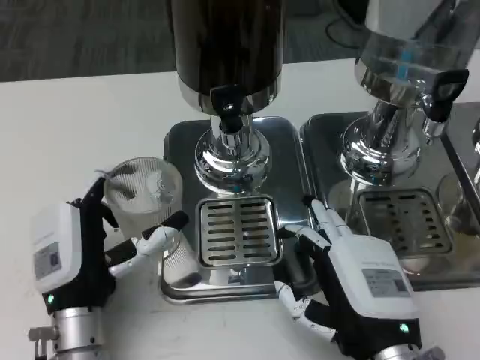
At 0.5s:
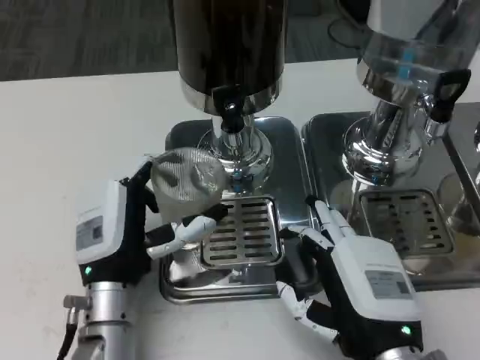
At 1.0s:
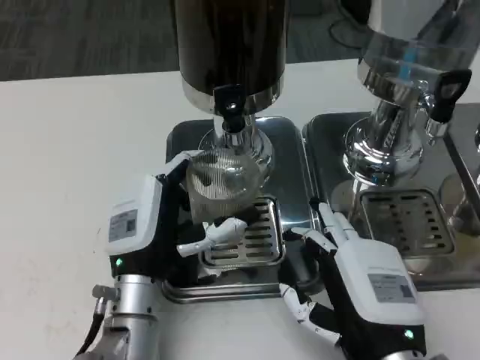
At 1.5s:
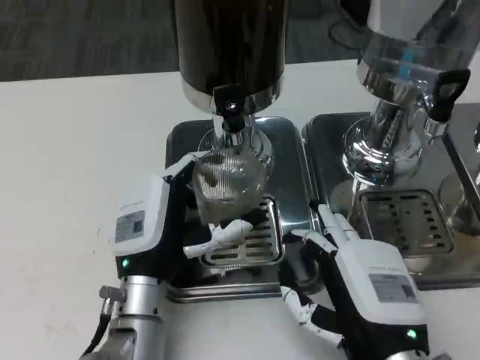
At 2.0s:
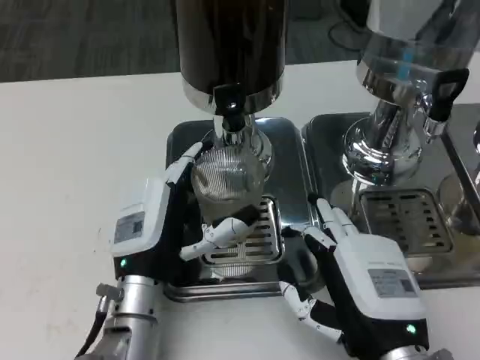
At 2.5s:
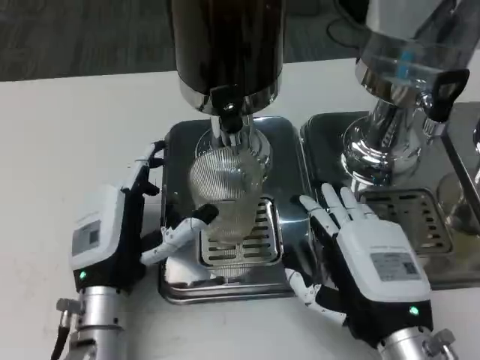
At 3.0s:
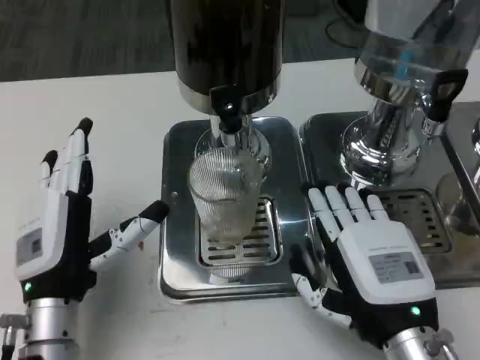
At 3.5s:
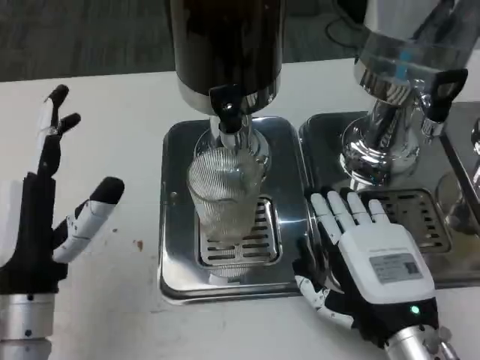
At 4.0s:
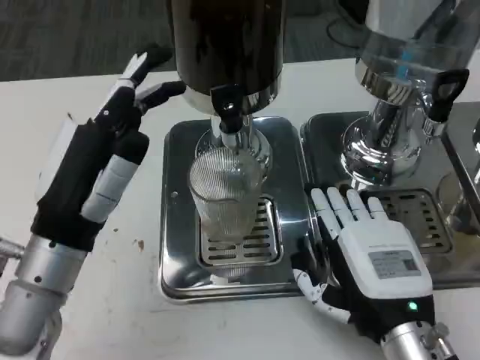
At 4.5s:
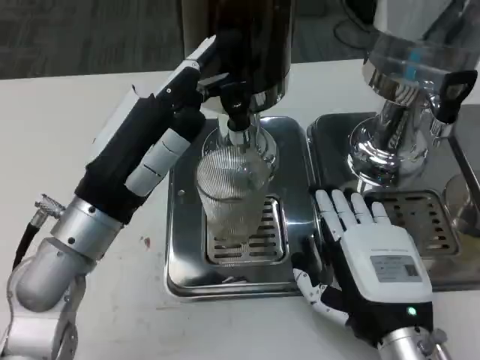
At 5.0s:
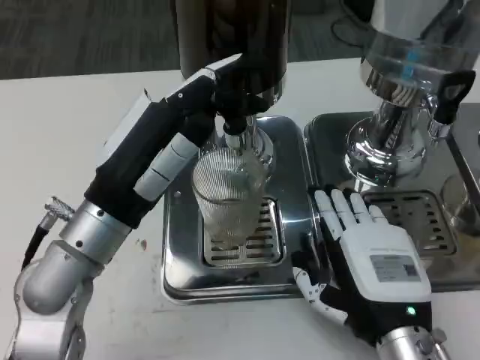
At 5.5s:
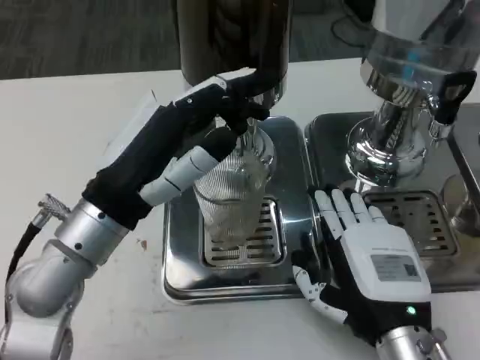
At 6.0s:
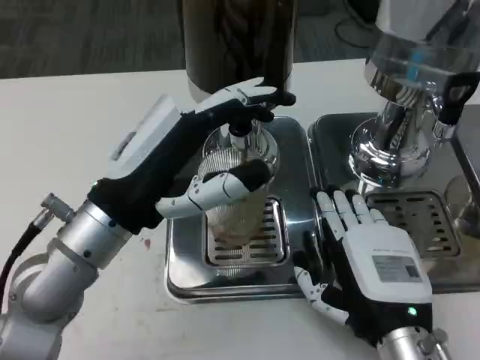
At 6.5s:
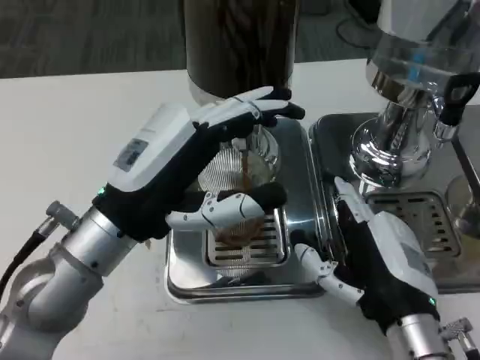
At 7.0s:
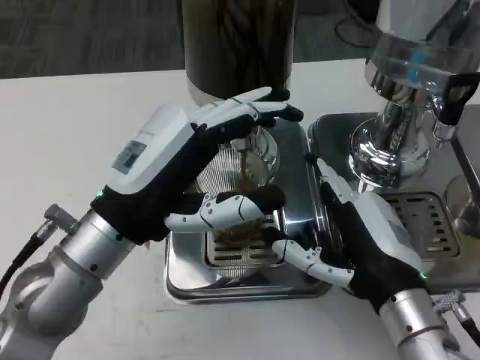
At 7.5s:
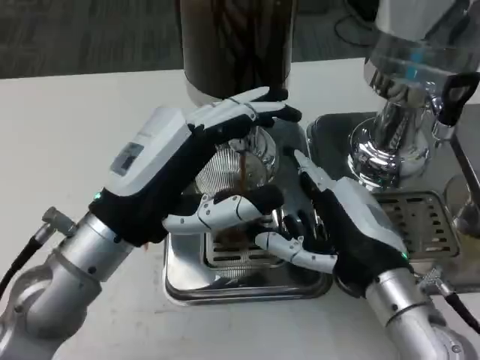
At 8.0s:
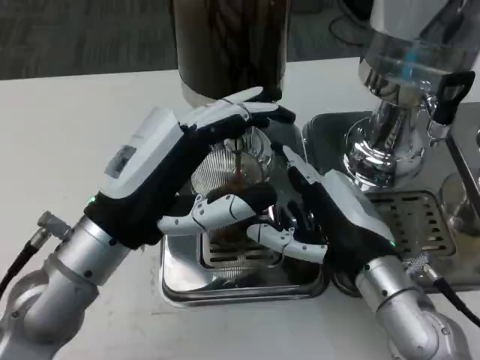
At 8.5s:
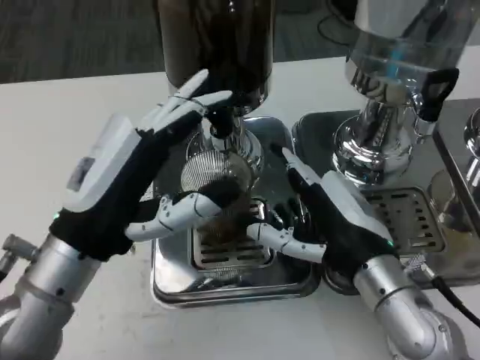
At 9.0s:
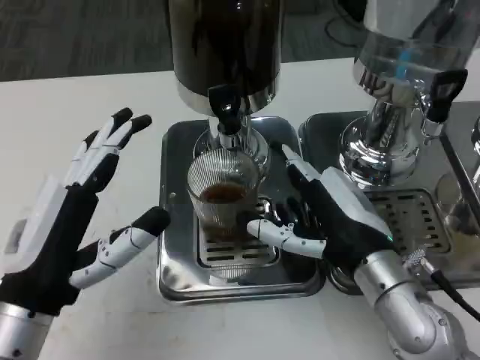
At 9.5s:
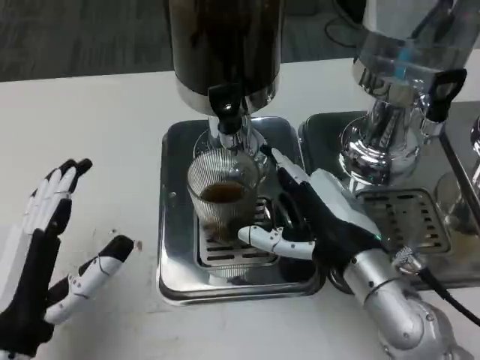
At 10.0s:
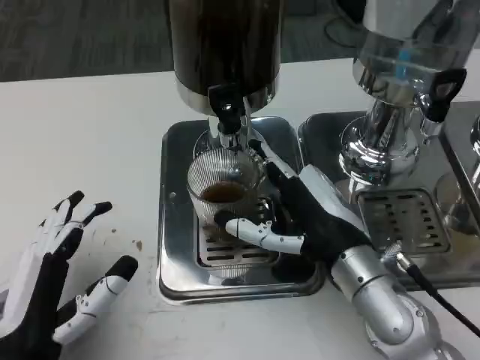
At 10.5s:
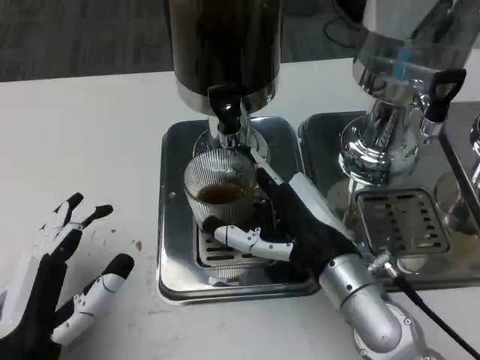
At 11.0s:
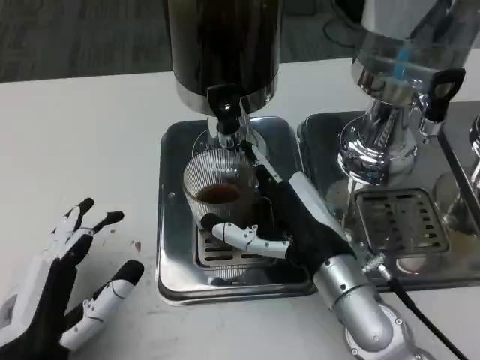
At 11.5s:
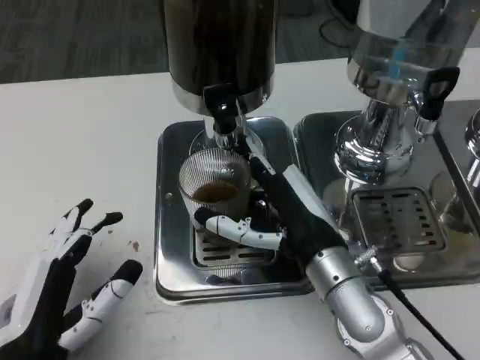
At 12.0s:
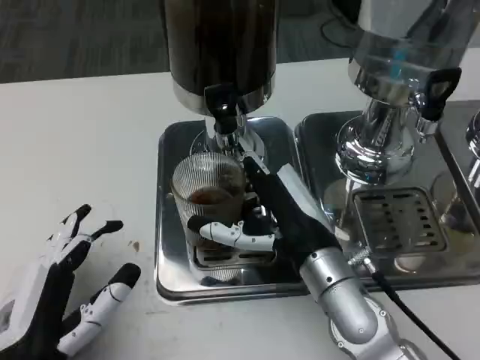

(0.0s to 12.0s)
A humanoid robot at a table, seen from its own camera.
Task of the whole recording: Grasp the cup under the faucet to collect the drink, then remove the cup.
2.0s - 4.0s: The left hand shifts some 10 cm upward and to the left.
6.0s - 8.0s: The right hand goes about 5 cm forward.
8.0s - 10.0s: The left hand goes roughly 15 cm backward, downward and to the left.

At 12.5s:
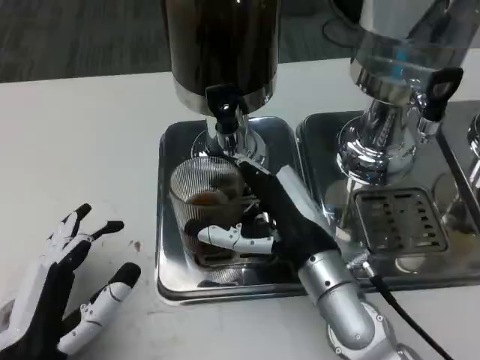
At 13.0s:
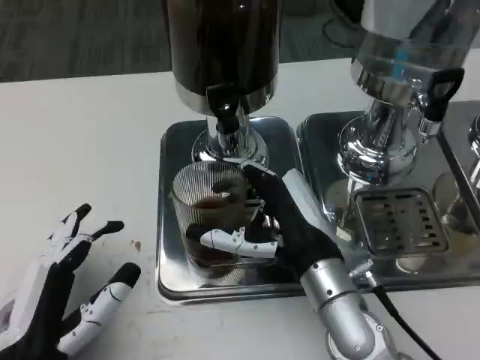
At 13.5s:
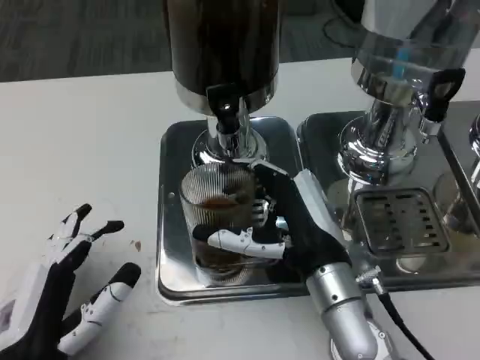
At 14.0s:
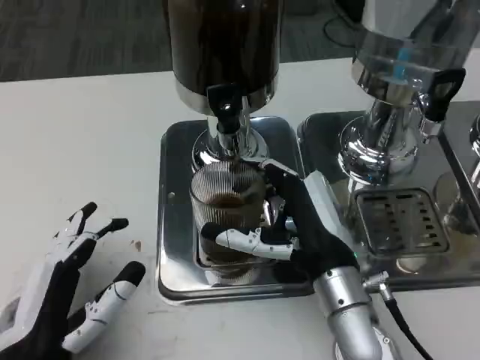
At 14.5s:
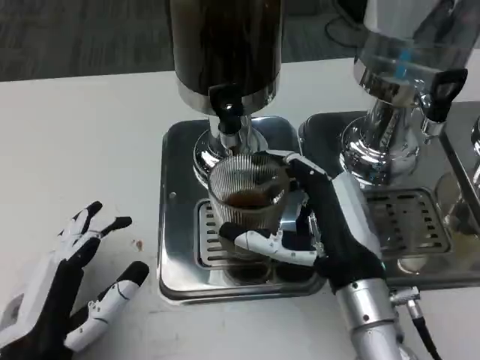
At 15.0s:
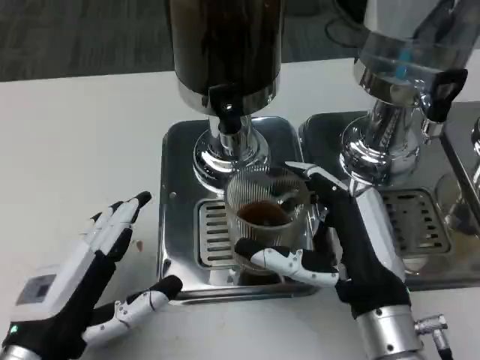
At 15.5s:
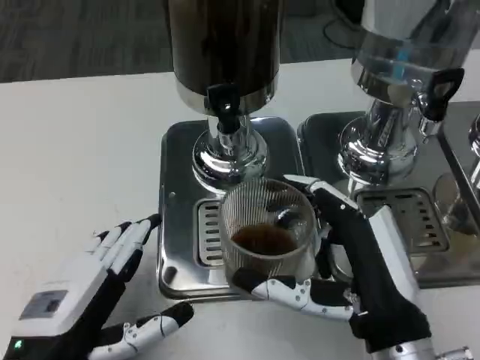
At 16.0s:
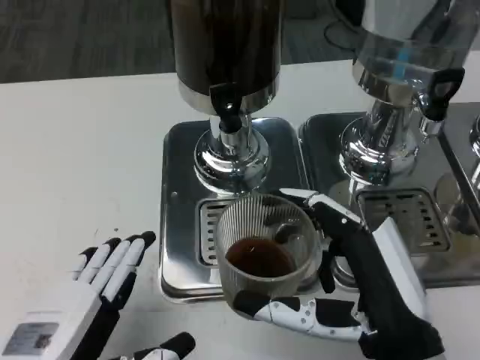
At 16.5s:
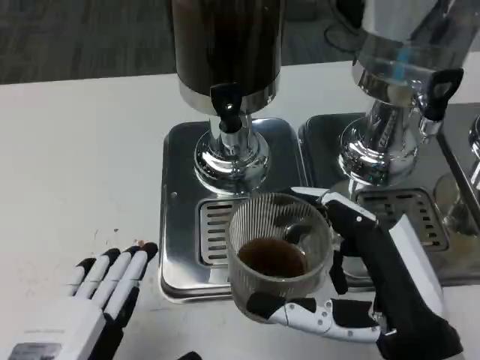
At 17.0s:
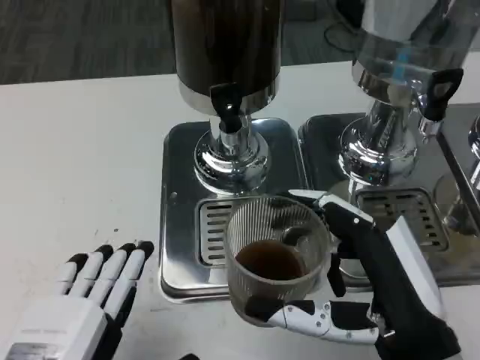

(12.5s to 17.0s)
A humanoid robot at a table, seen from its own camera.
Task of the whole recording: Grasp the cup under the faucet to collect the drink, then remove the cup.
14.5s - 17.0s: The left hand heads upward and backward, covering about 10 cm, while the right hand moves backward, roughly 10 cm.

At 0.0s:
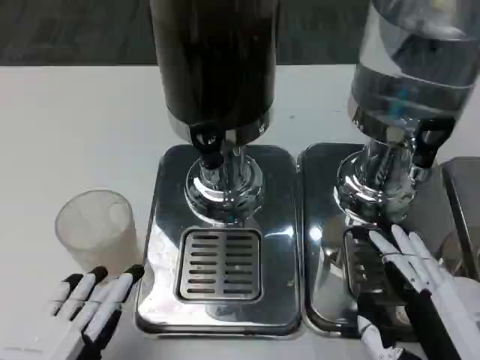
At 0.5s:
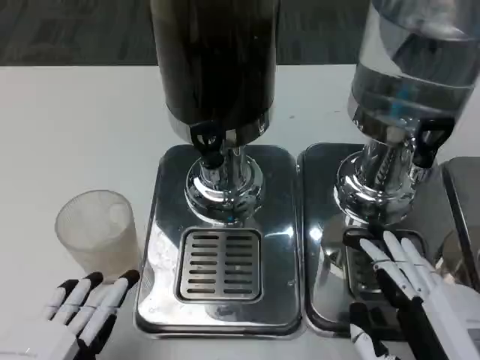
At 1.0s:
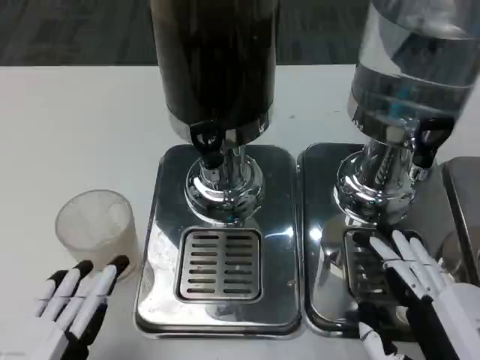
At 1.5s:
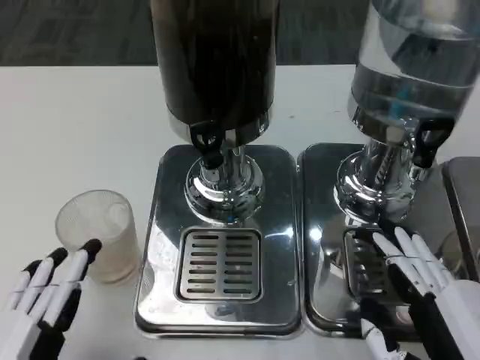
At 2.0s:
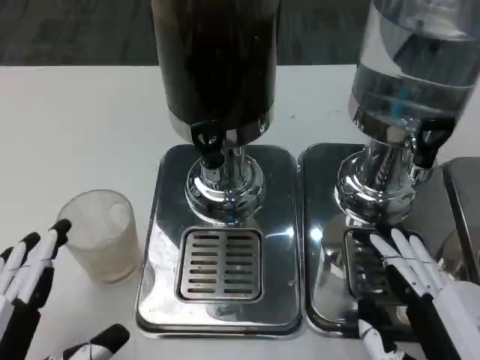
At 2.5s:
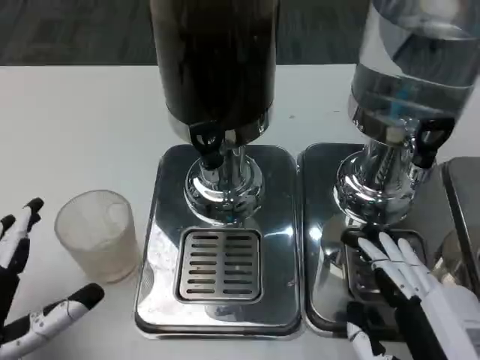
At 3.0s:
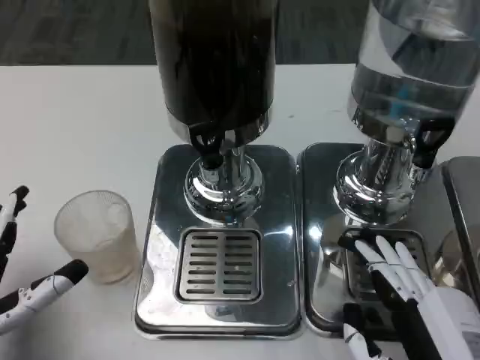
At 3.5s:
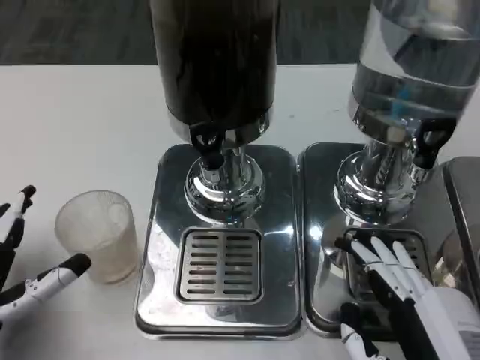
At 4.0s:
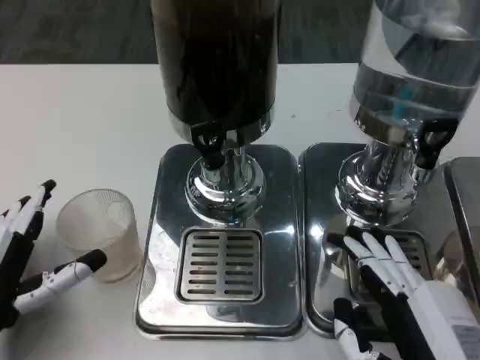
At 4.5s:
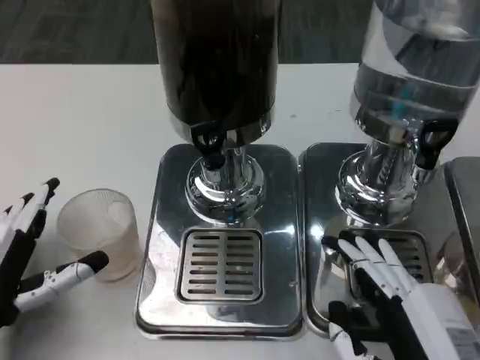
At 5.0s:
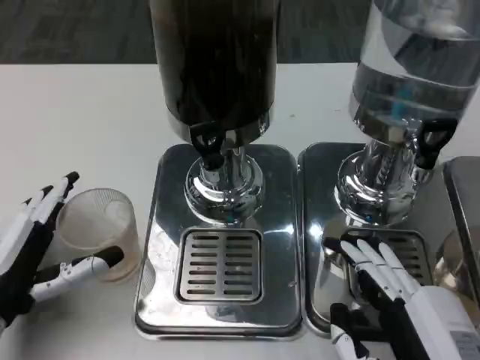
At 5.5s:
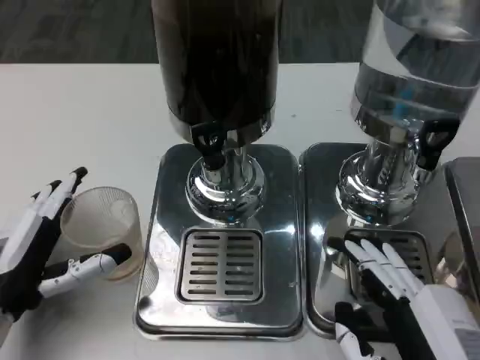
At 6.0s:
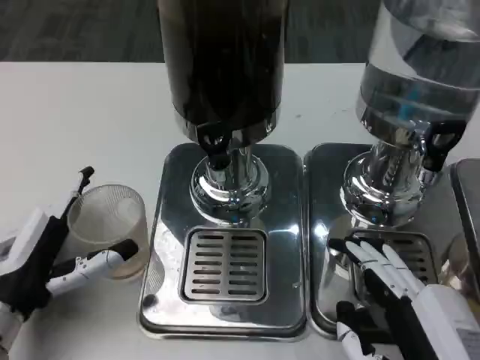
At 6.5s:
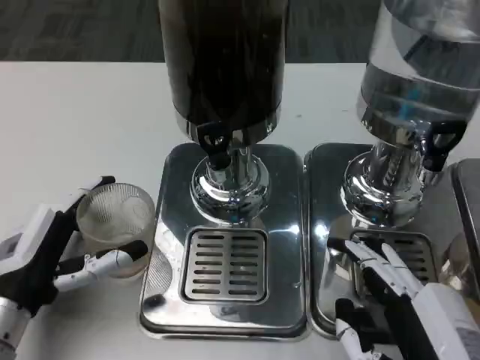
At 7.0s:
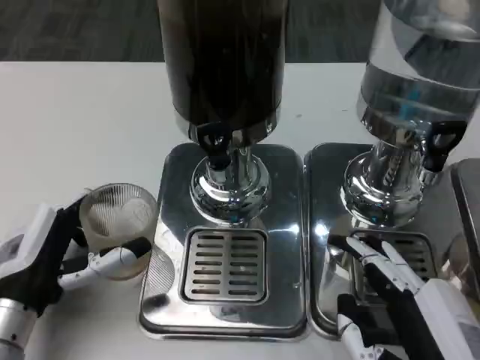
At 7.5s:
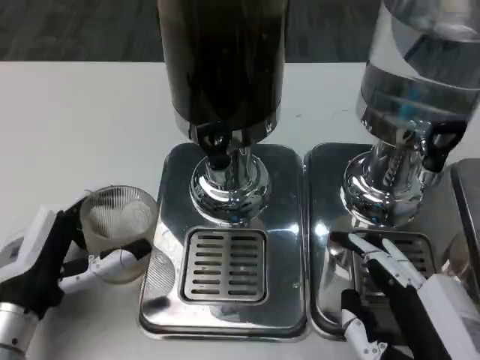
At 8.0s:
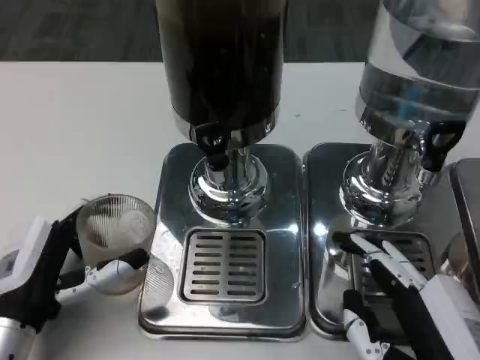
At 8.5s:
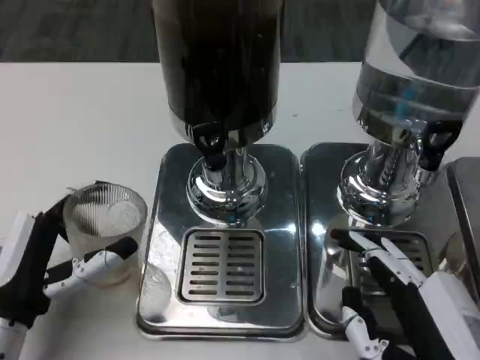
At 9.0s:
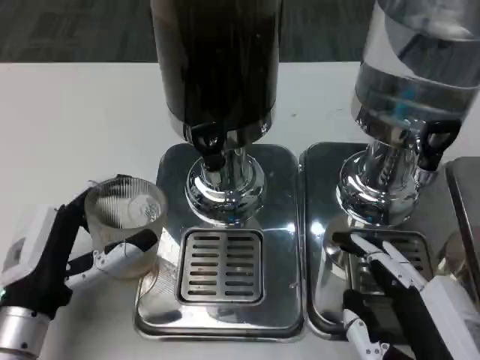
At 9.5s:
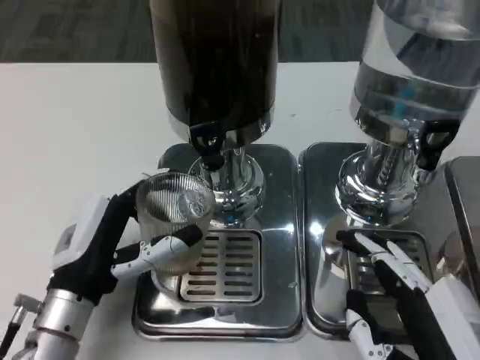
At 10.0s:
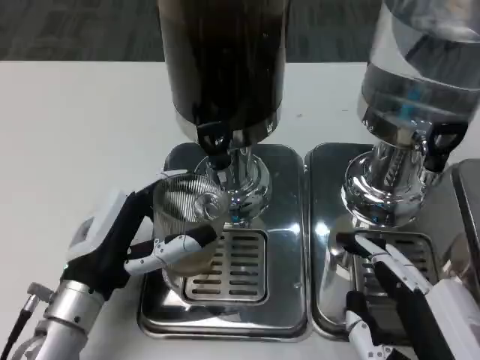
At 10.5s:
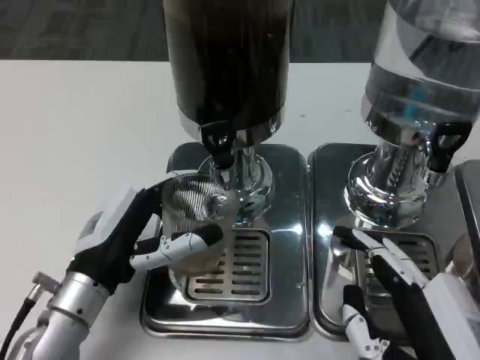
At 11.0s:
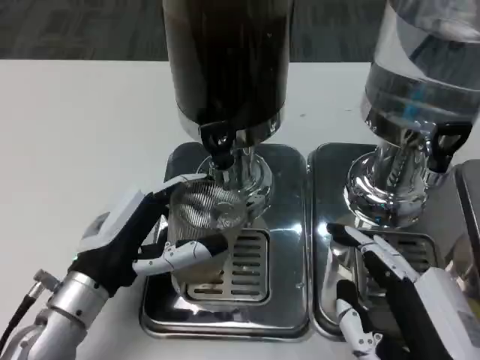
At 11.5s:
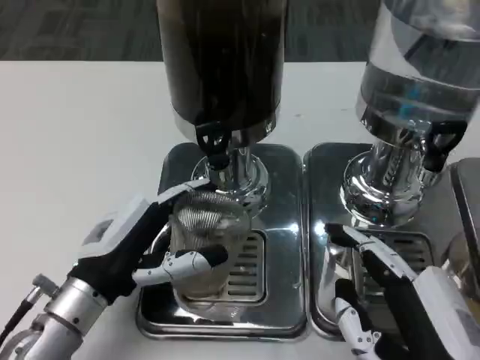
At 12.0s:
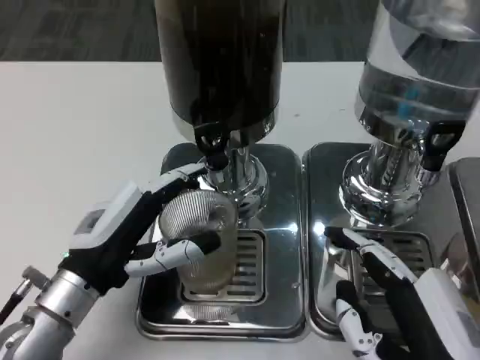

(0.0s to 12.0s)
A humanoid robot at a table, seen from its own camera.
Task of the whole recording: Grasp the cup under the faucet to collect the drink, then remove the cup.
0.0s - 2.0s: The hands make only small movements.
2.0s - 4.0s: The left hand heads forward, covering roughly 10 cm.
6.0s - 8.0s: The hands make only small movements.
8.0s - 10.0s: The left hand is displaced to the right by approximately 5 cm.
